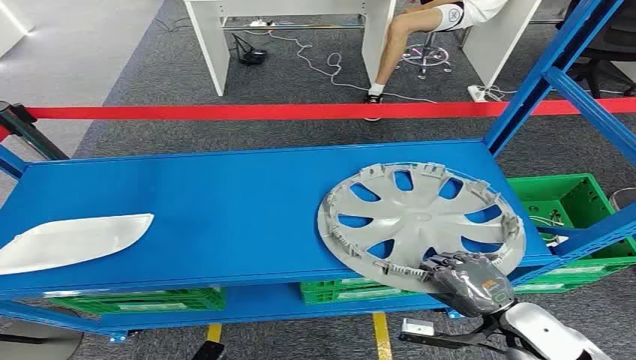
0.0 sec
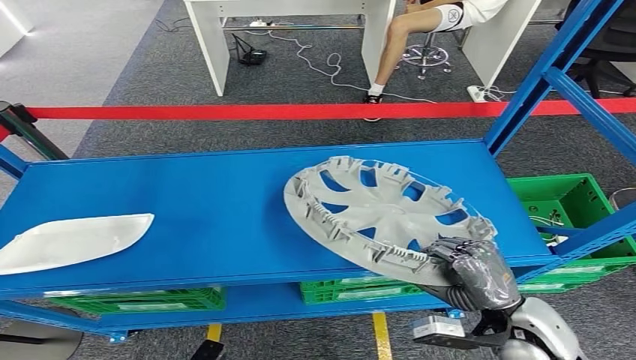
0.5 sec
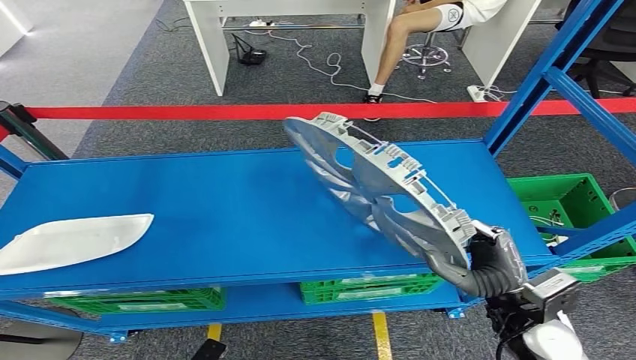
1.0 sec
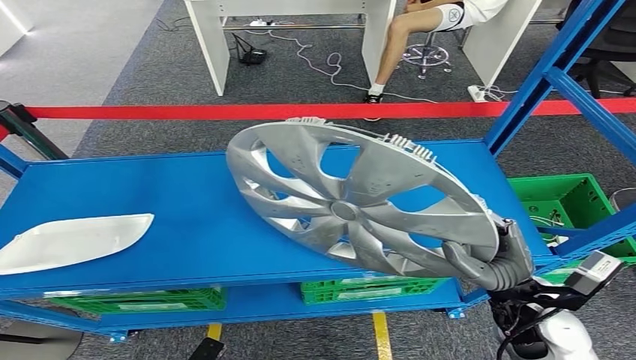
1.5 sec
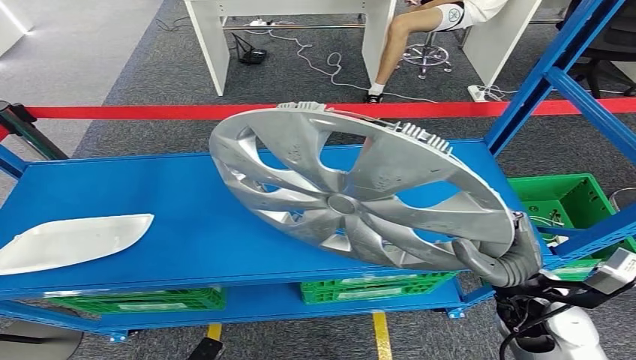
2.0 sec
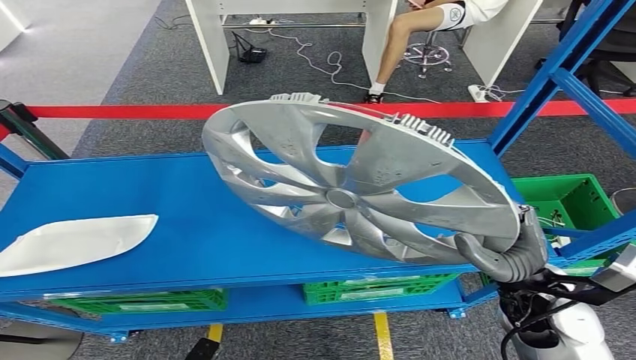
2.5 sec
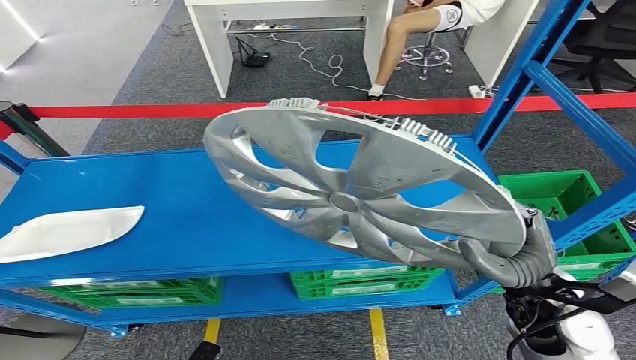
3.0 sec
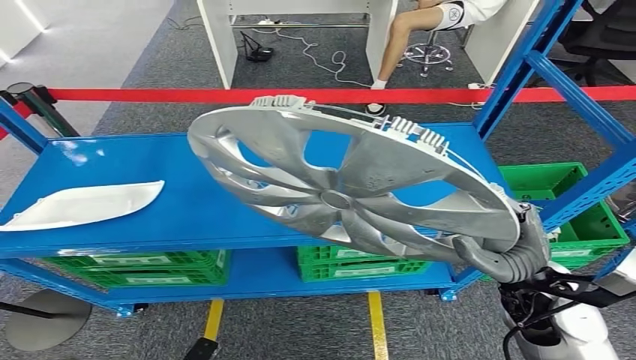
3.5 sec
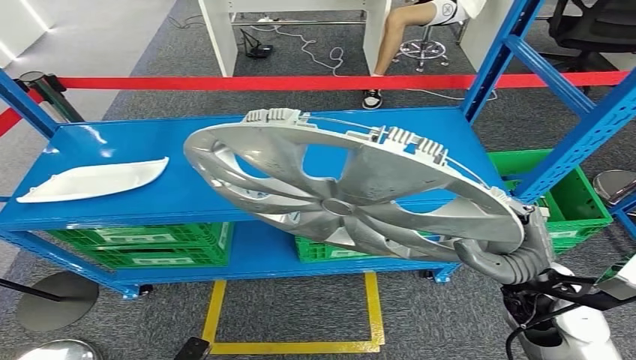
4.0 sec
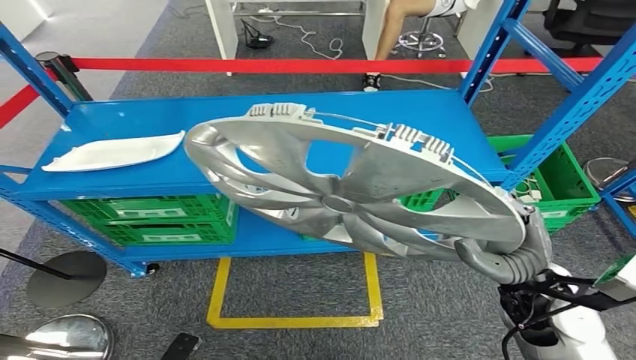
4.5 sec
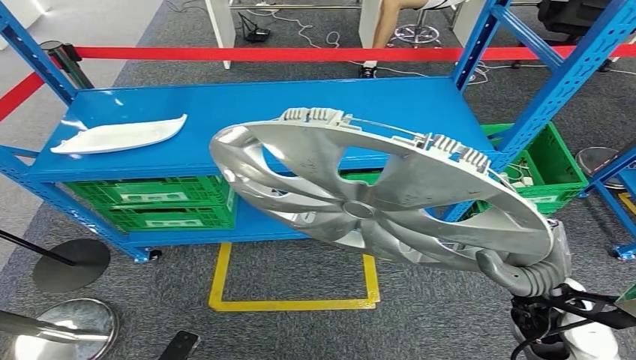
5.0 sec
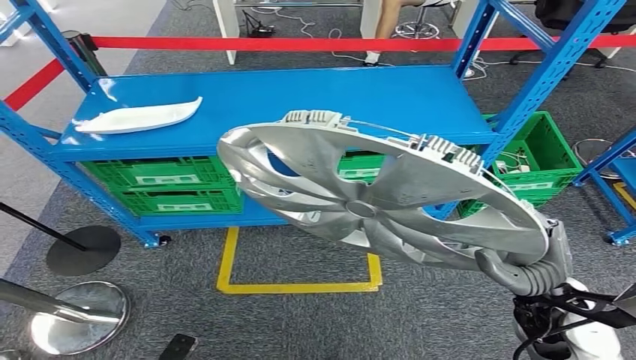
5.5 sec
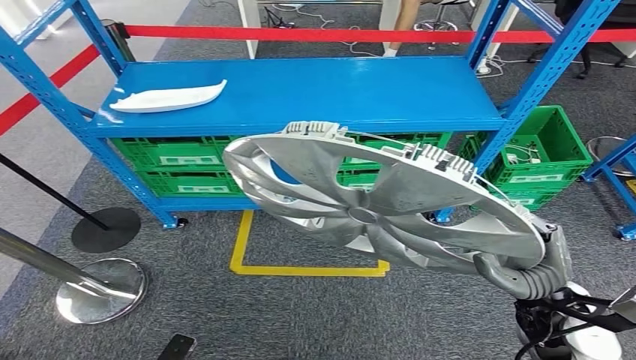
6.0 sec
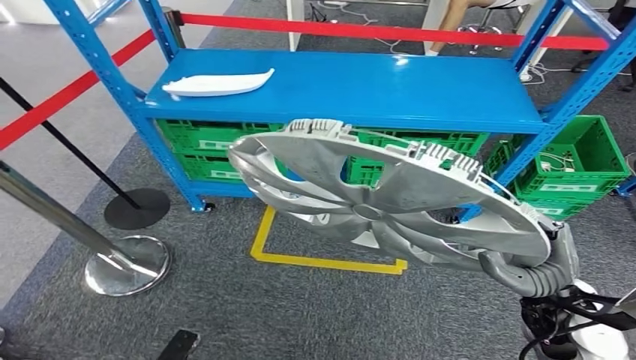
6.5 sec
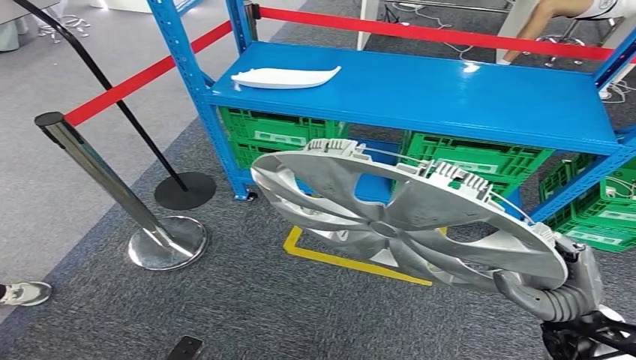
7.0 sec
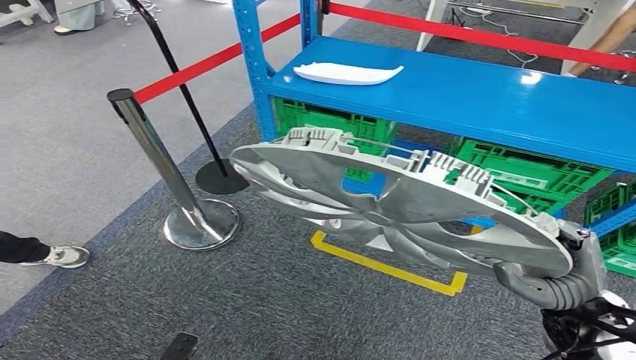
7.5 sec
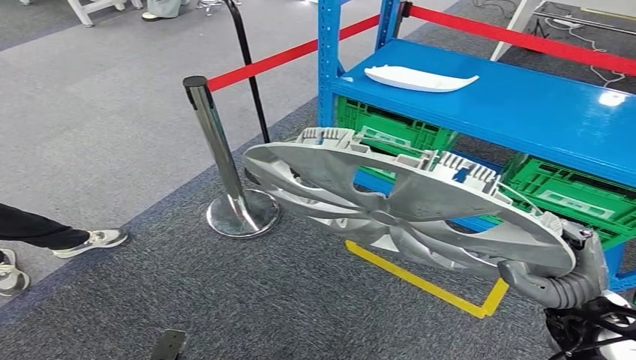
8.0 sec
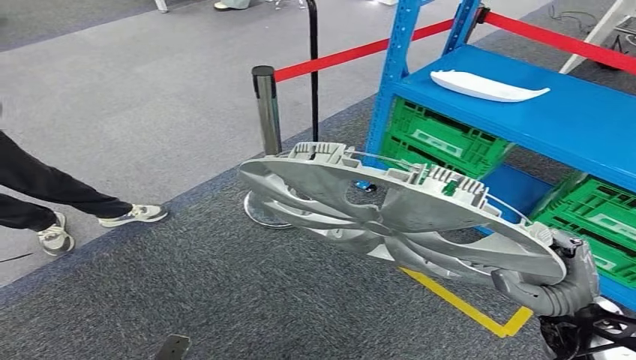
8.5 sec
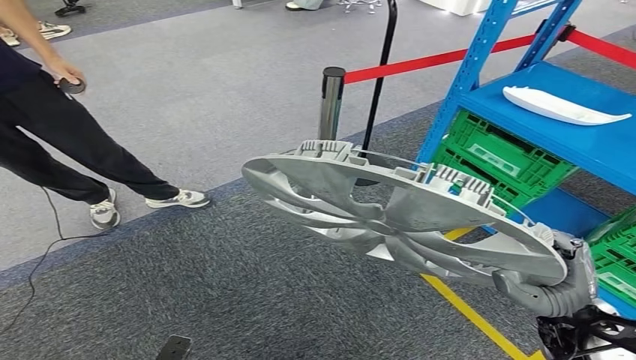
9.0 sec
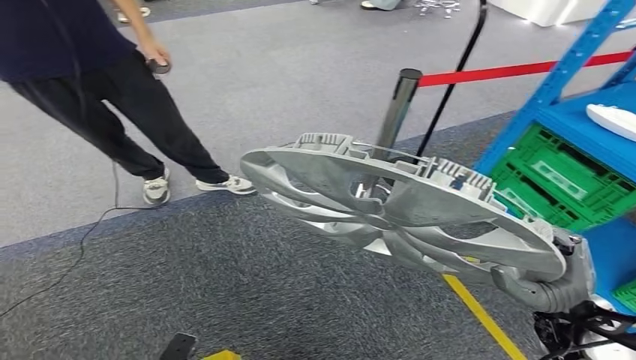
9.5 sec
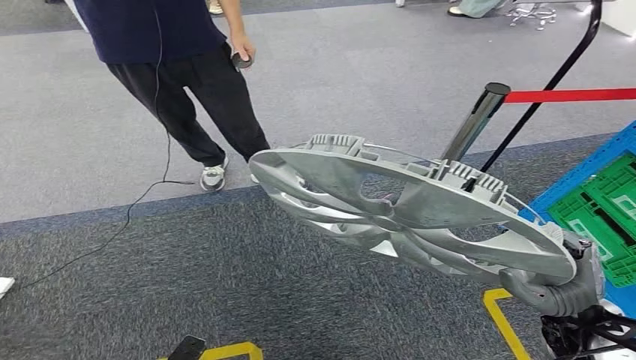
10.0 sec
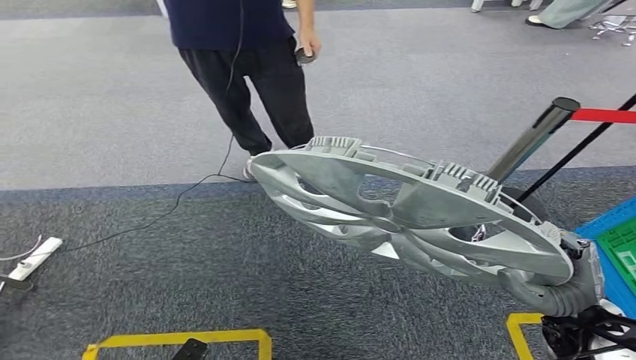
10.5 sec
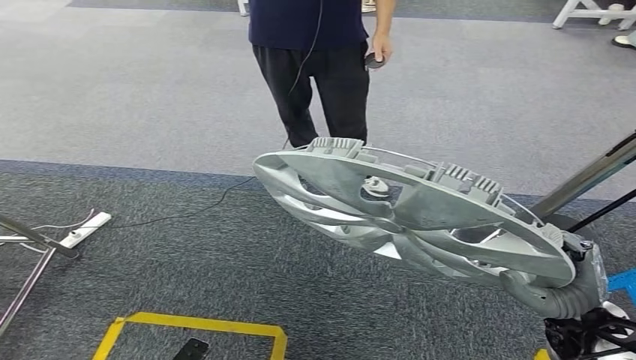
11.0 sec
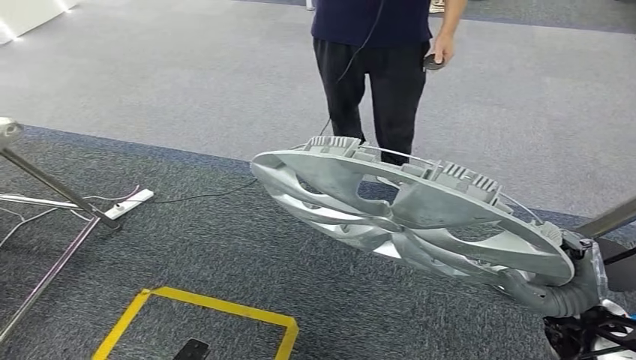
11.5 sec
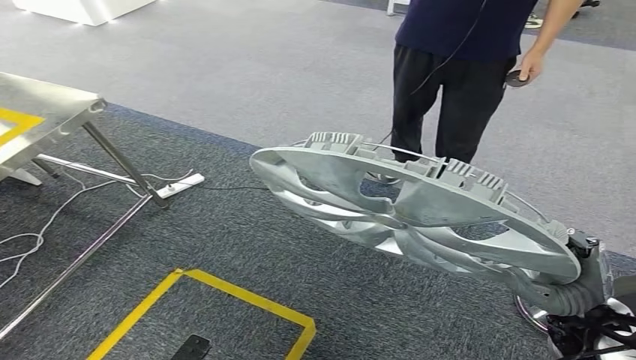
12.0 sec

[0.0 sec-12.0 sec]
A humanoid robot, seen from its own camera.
Step, 0.0 sec to 3.5 sec: Pick up the small parts from the shelf.

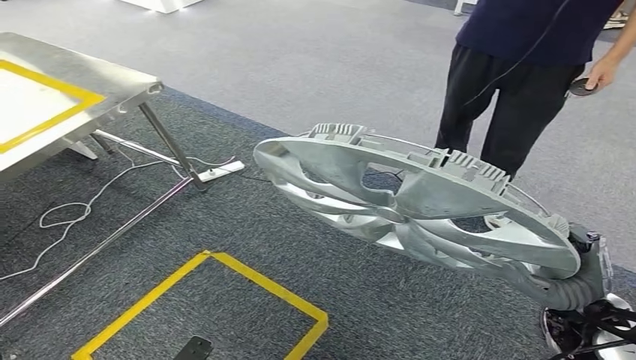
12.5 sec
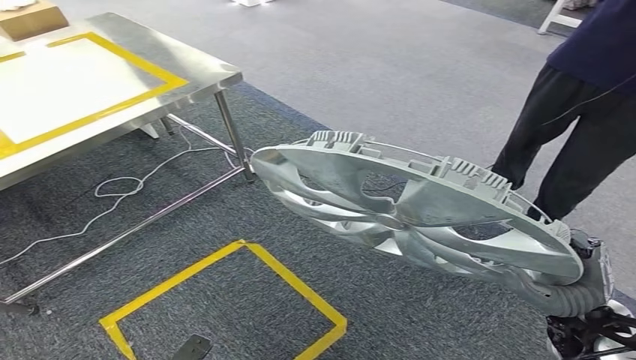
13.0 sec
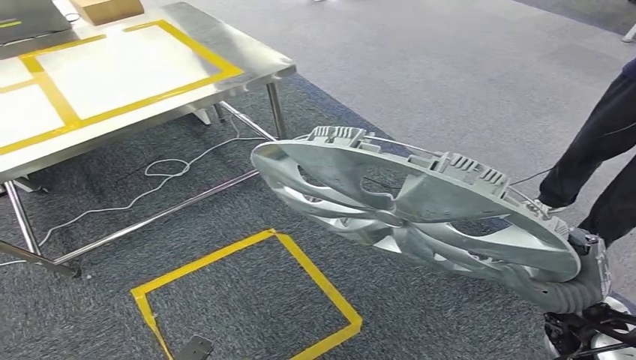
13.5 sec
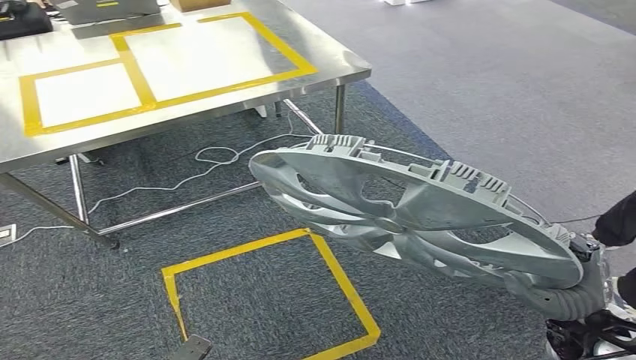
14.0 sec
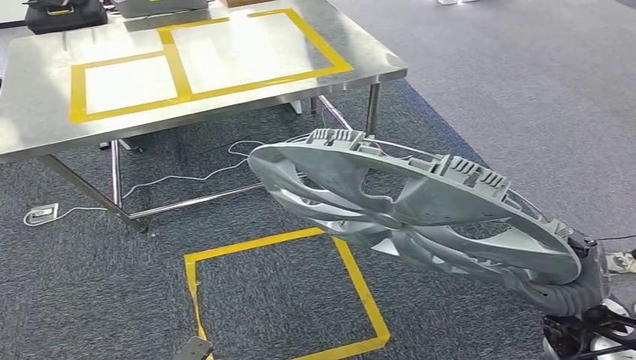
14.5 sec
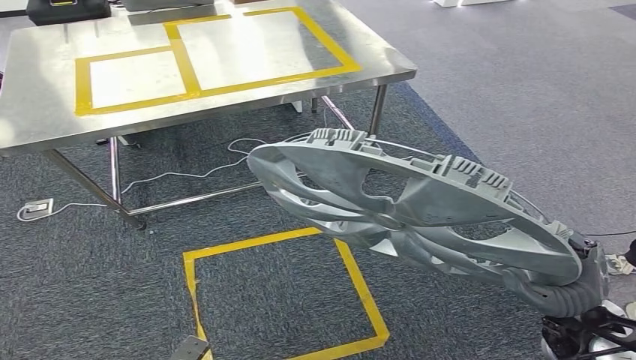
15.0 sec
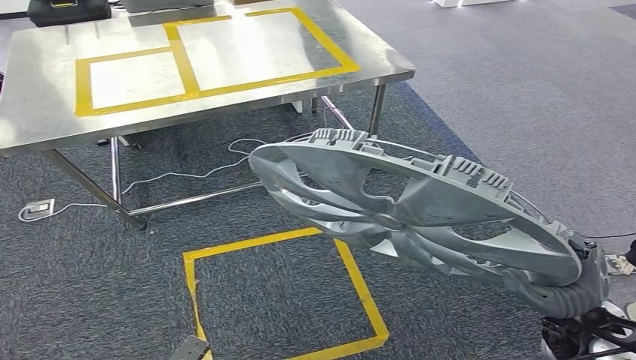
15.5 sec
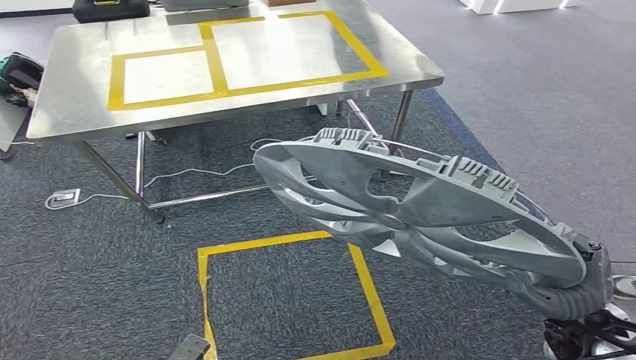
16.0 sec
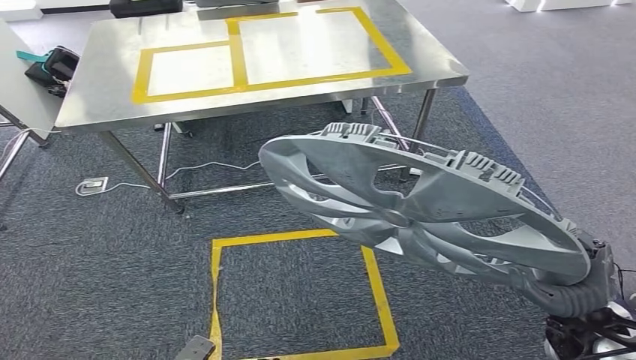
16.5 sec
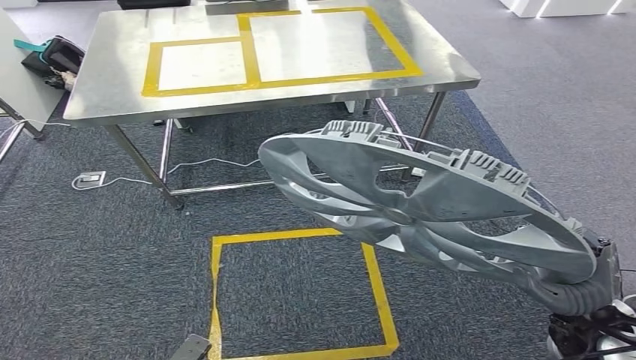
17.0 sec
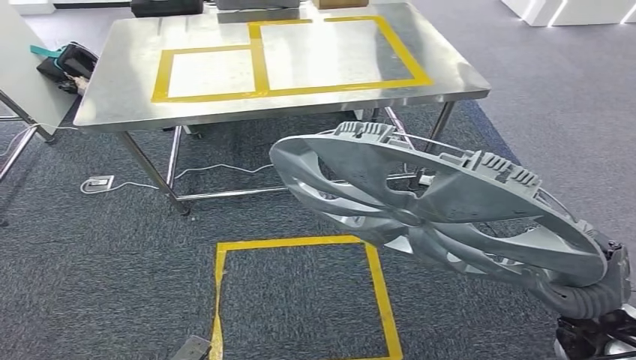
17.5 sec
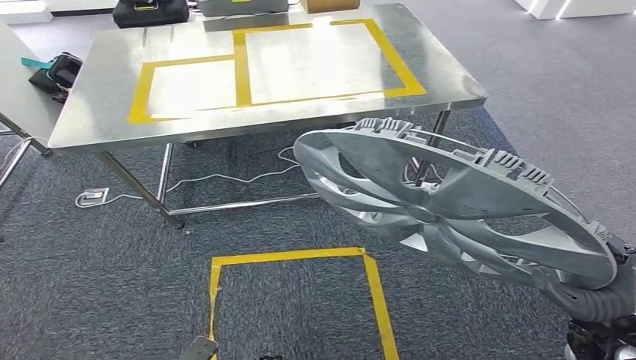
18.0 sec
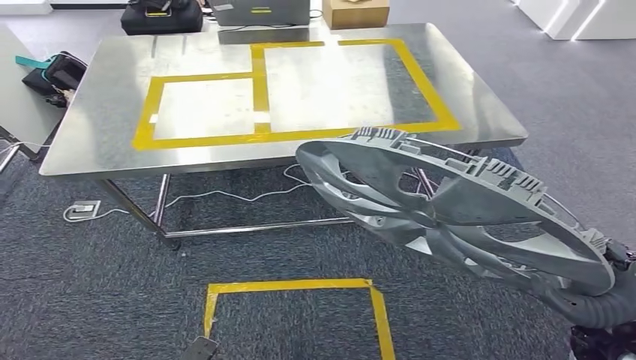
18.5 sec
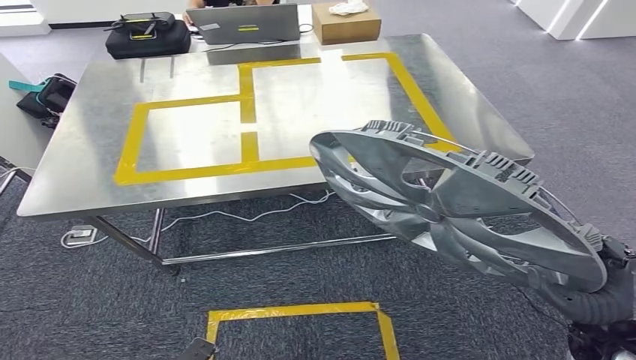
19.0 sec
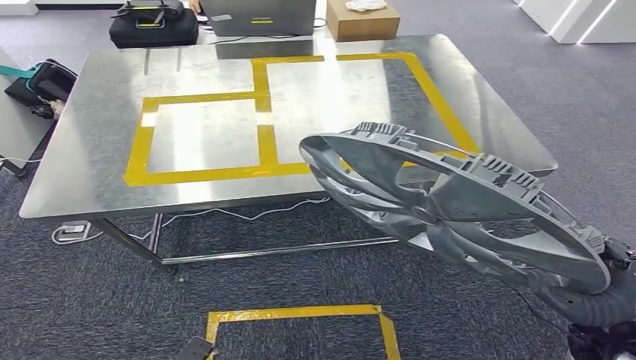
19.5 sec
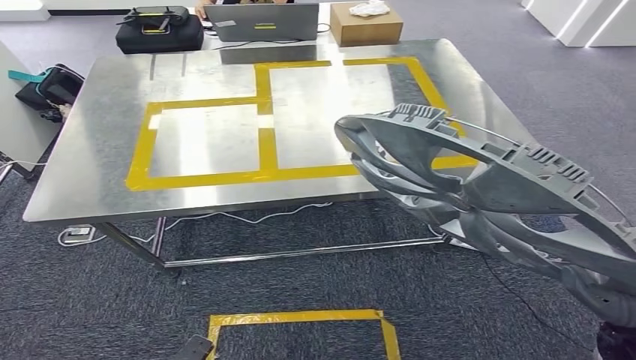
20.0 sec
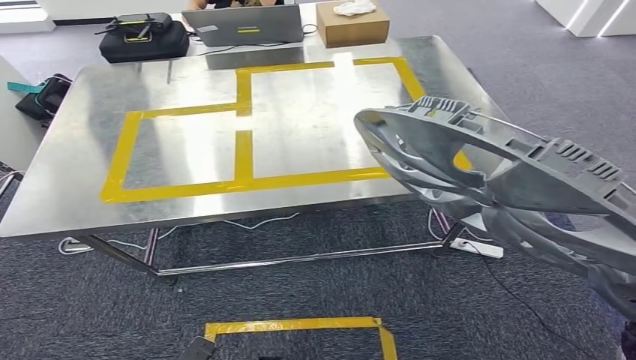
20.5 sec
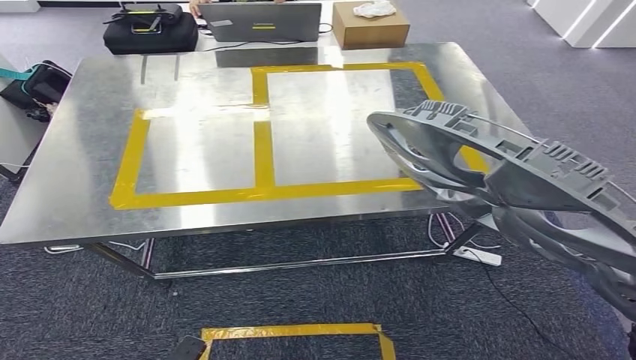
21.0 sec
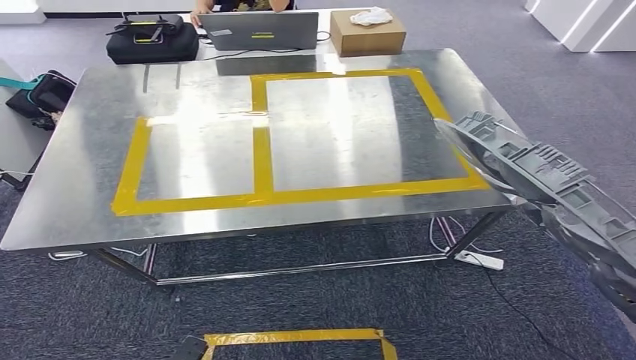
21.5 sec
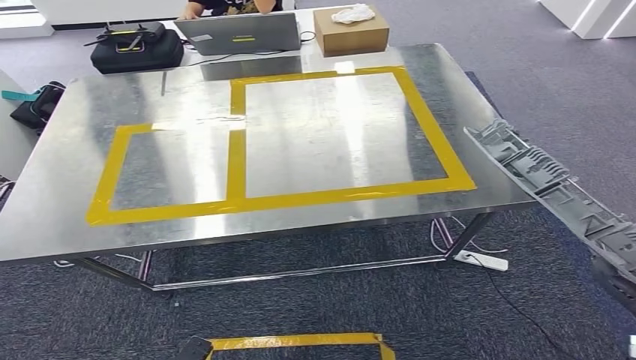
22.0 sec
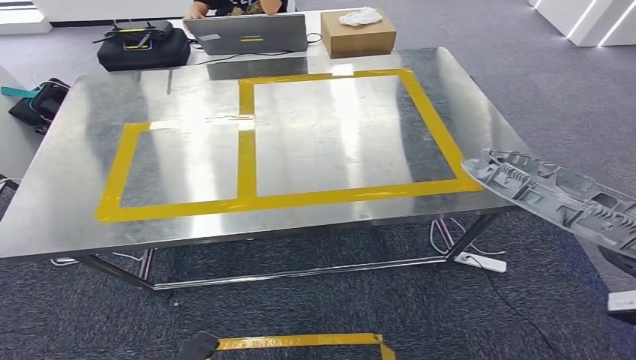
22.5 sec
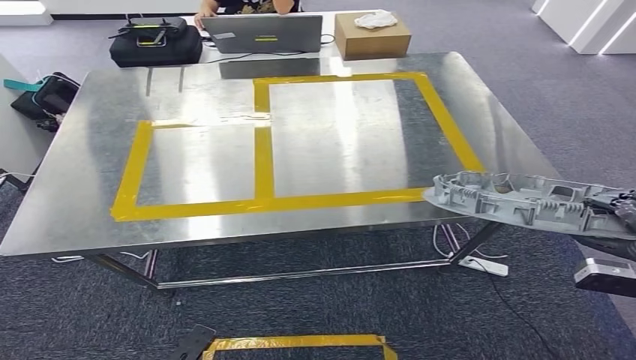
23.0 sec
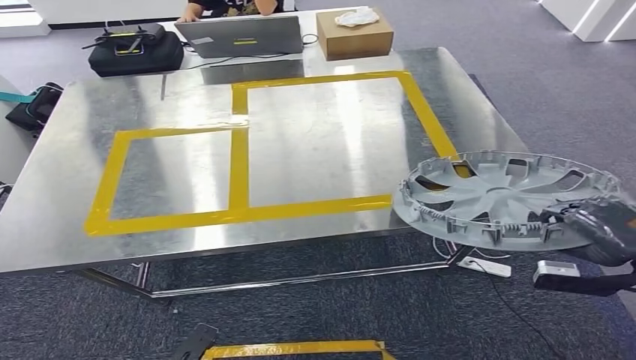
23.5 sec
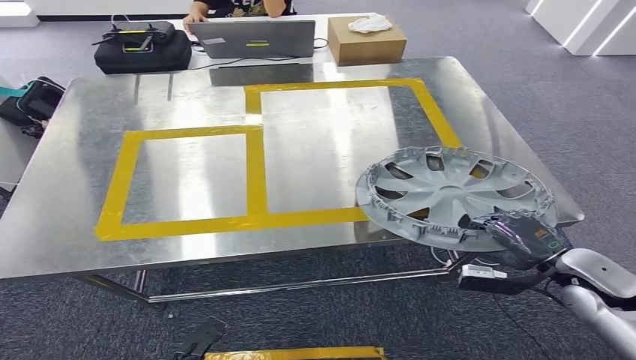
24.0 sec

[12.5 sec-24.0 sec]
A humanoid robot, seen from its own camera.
Step, 12.5 sec to 20.0 sec: Move the small parts to the workbench.
